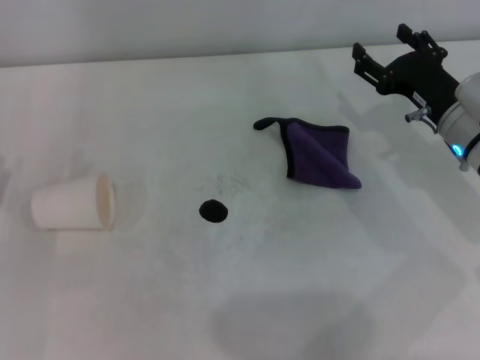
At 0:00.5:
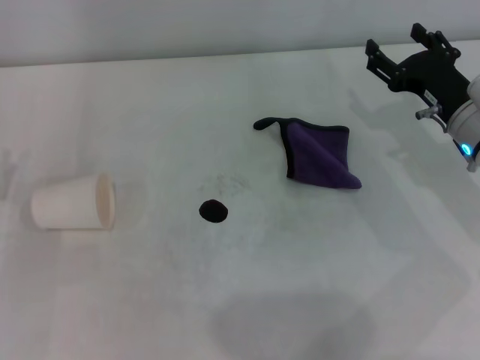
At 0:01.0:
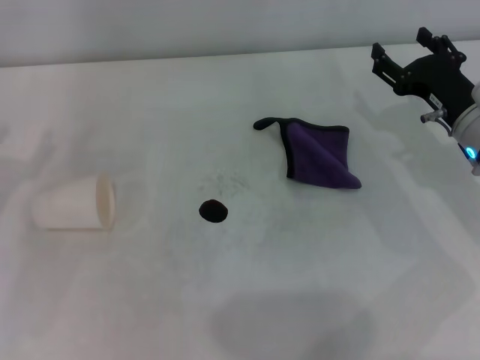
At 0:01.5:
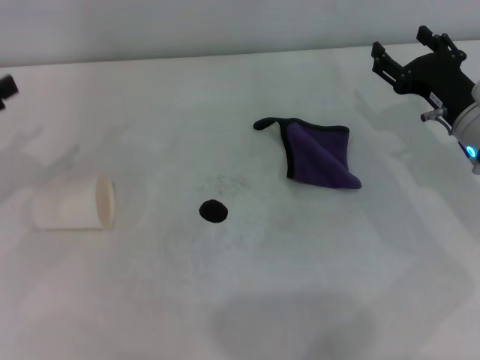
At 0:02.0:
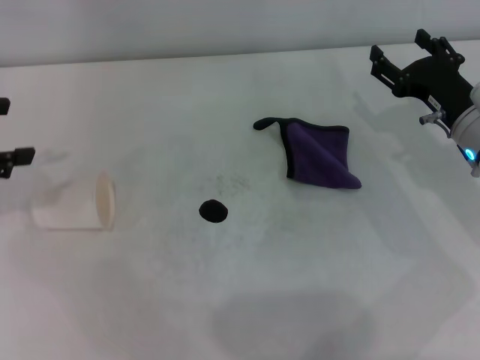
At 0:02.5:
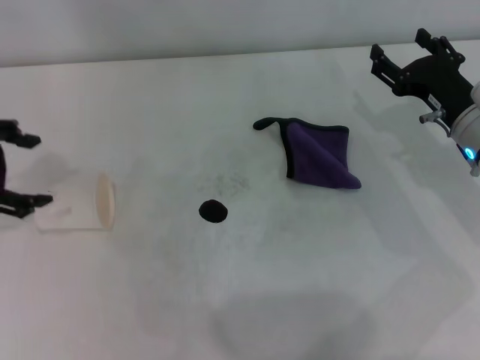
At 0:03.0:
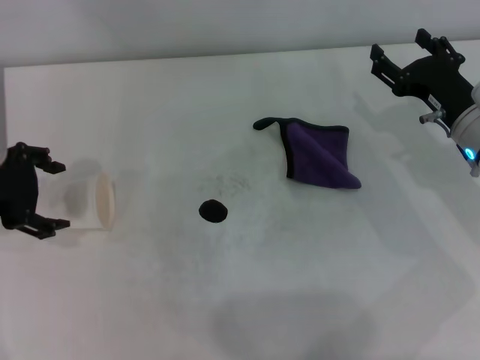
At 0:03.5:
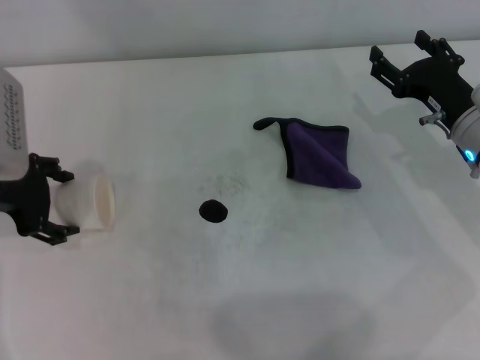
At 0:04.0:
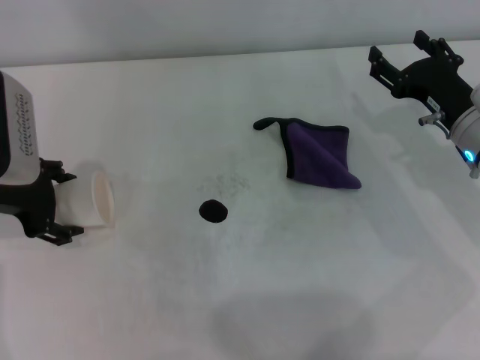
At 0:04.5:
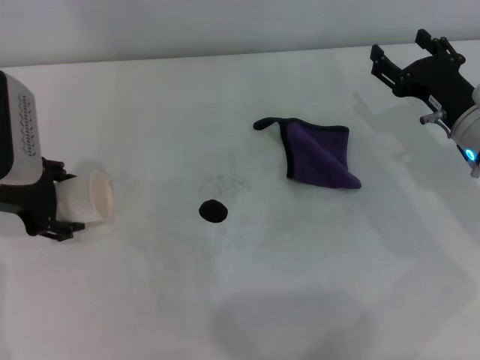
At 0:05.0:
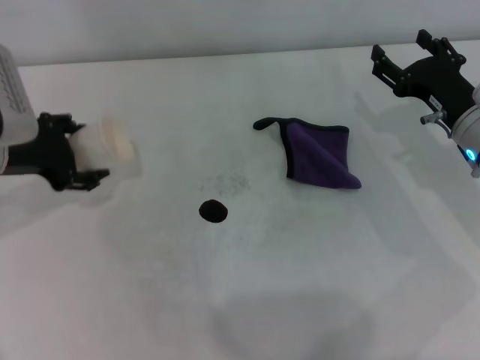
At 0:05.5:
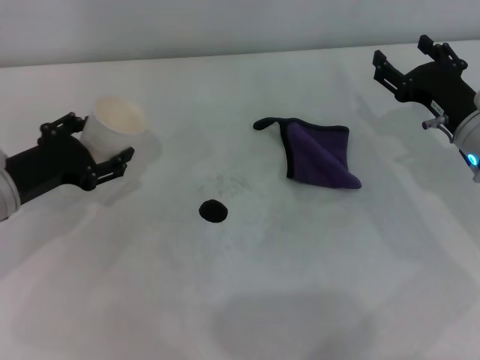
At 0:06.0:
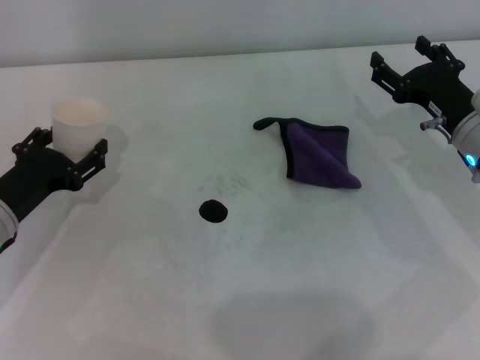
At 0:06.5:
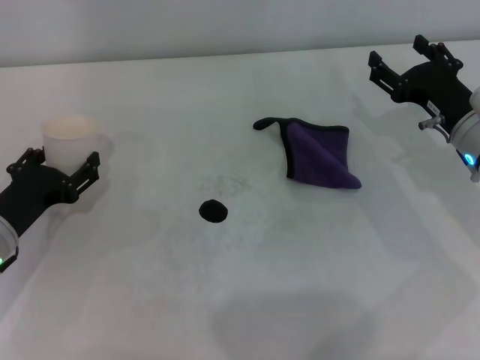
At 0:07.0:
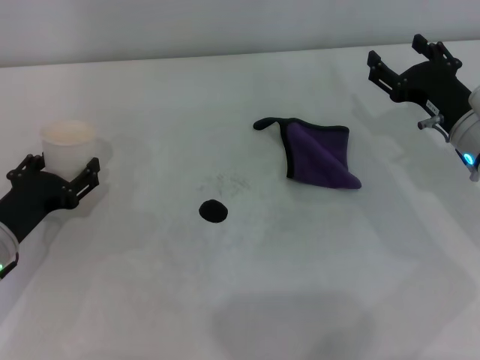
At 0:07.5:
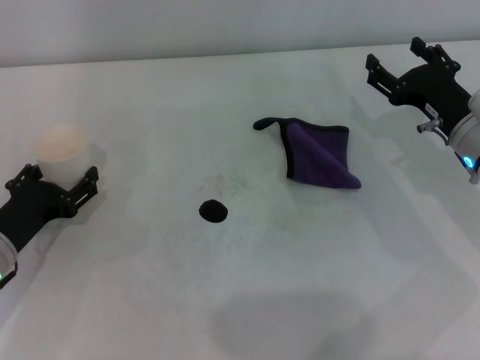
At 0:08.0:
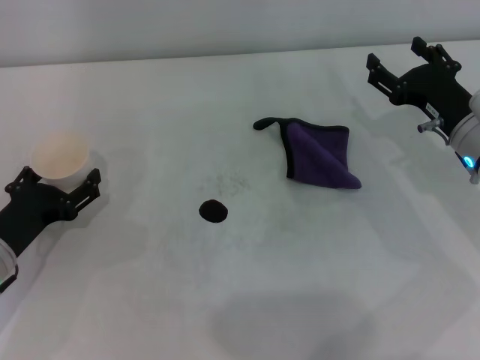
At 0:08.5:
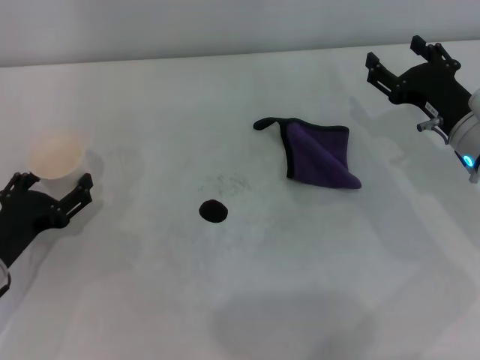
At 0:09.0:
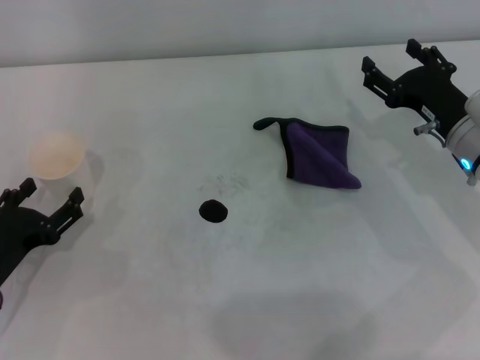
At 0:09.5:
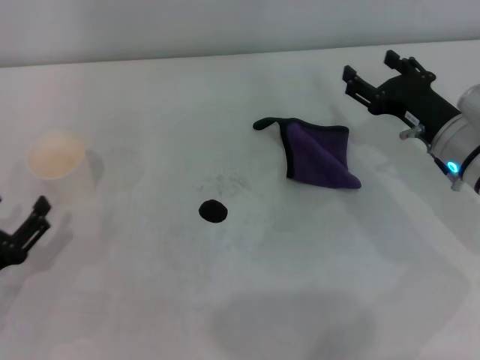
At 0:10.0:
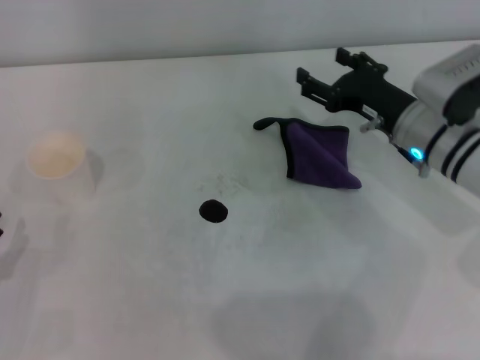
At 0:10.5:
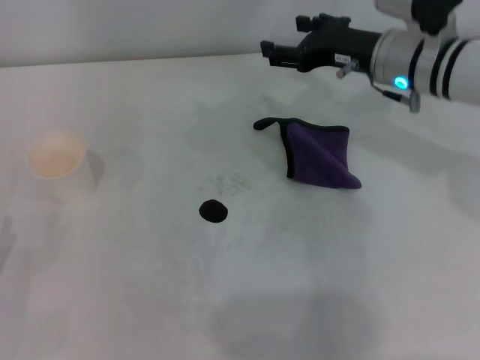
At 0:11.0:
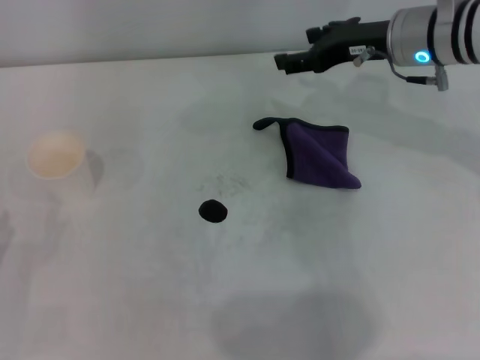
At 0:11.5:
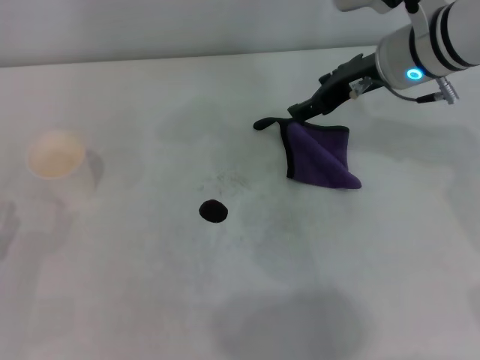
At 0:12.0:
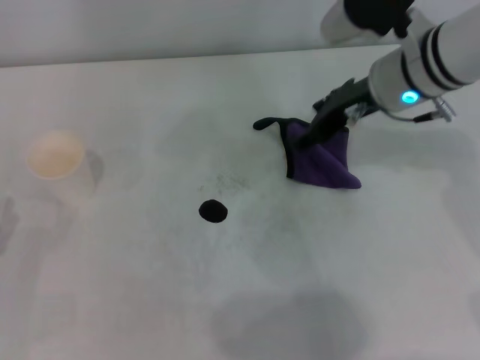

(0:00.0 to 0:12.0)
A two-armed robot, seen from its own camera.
Step, 0:00.0 - 0:04.5: Grasp the paper cup with the left gripper.
Step, 0:05.0 - 0:08.5: Stand the paper cup upright with the left gripper.
0:00.0 - 0:02.0: The left gripper is displaced upward and forward by roughly 20 cm.
0:02.0 - 0:04.0: The left gripper travels to the right and downward by roughly 10 cm.
0:04.0 - 0:06.0: The left gripper moves downward, some 10 cm.
0:06.0 - 0:08.0: The grippers move only a little.
0:08.0 - 0:10.0: The left gripper travels backward and to the left by some 10 cm. Meanwhile the right gripper heads to the left, covering approximately 5 cm.
0:10.0 - 0:12.0: The right gripper goes approximately 10 cm upward.

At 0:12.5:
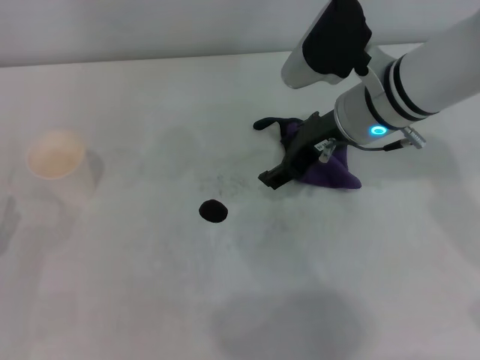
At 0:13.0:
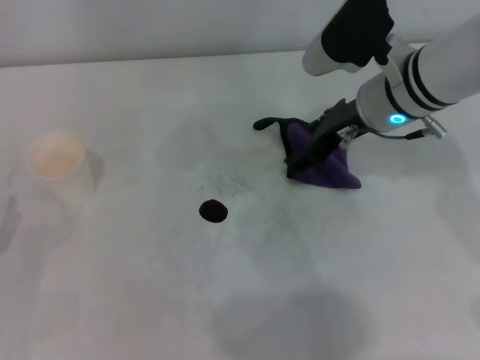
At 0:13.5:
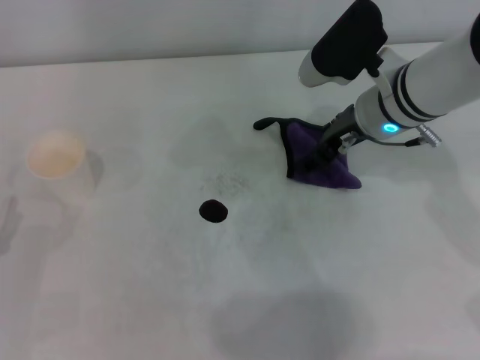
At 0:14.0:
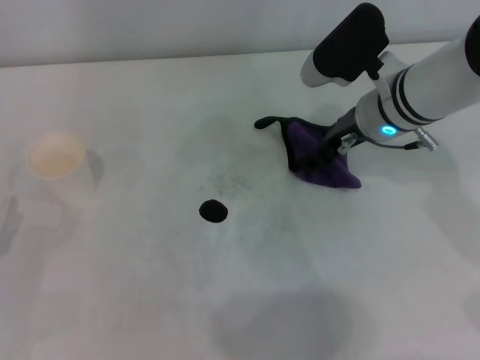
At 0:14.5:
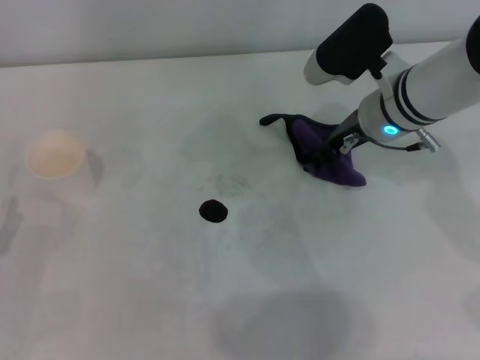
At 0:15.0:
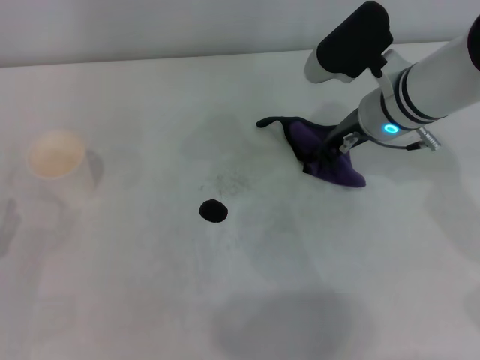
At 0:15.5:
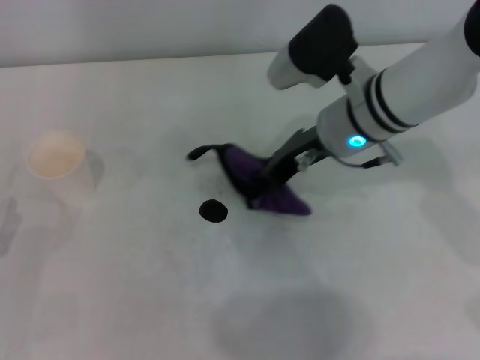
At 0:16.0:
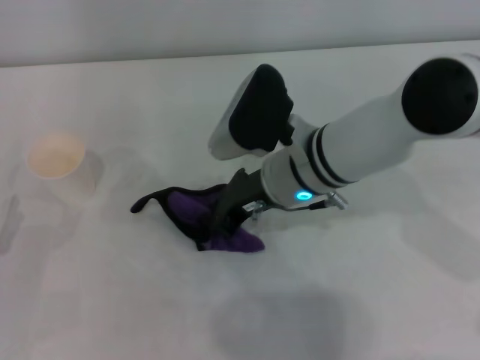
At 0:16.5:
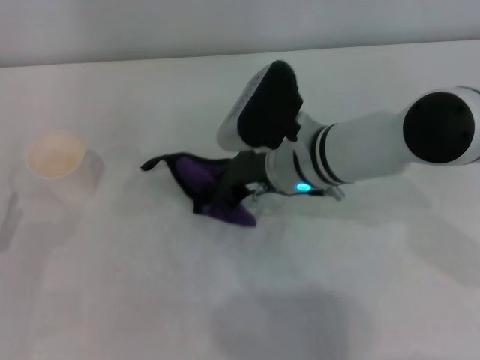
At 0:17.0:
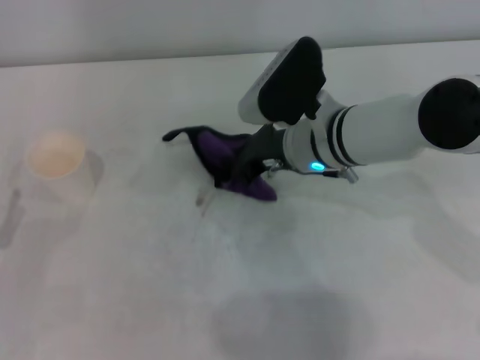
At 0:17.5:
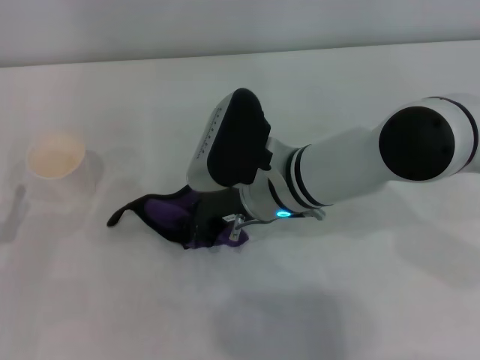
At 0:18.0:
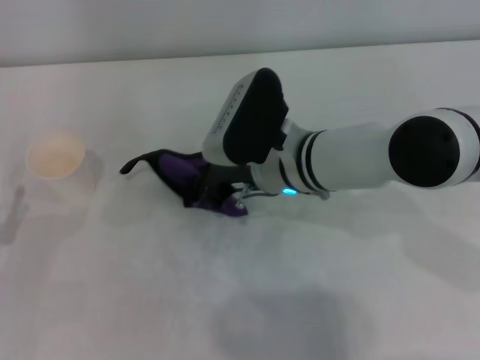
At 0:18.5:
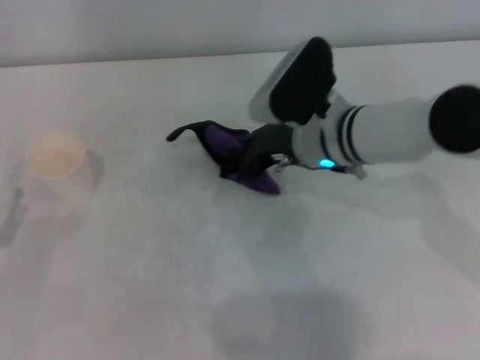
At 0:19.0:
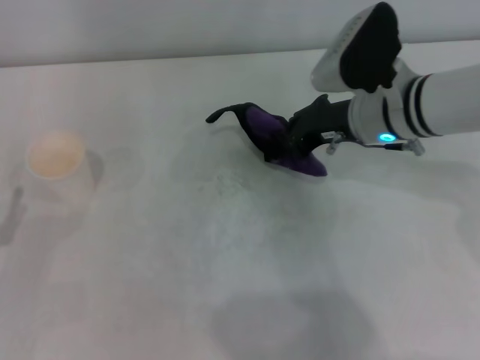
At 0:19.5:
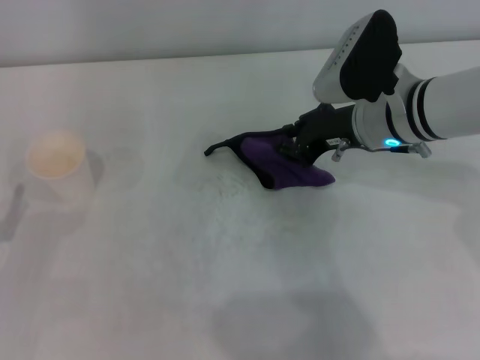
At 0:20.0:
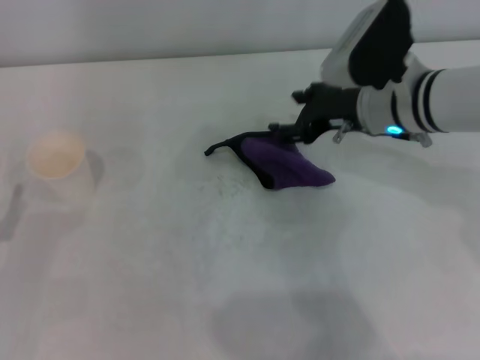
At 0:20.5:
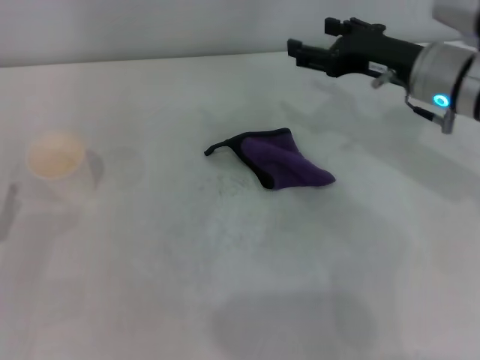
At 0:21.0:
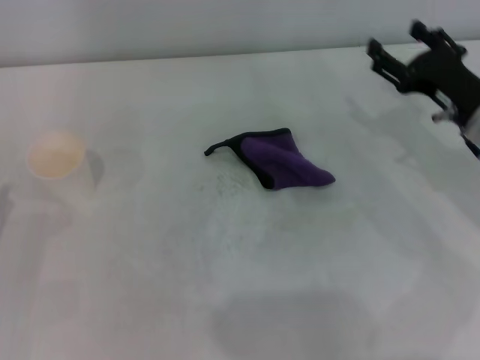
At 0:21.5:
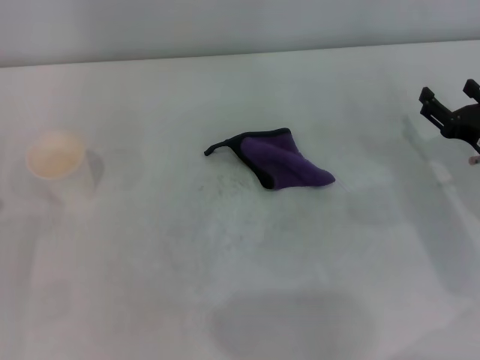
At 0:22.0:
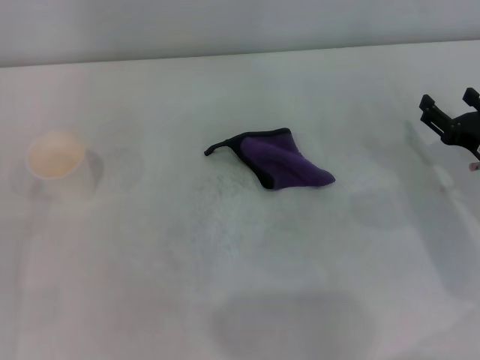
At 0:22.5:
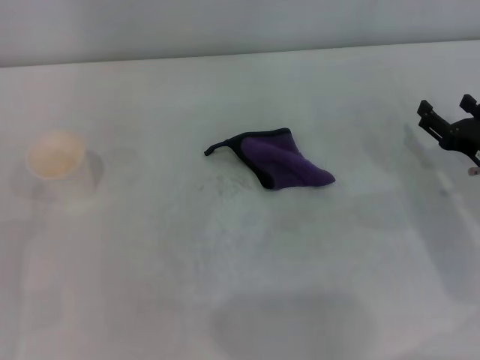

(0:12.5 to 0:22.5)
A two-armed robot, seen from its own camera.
Step, 0:12.5 - 0:14.5: Grasp the rag with the right gripper.
Step, 0:15.0 - 0:18.5: Wipe the stains off the table with the right gripper.
Step, 0:19.0 - 0:19.5: Place the rag on the table with the right gripper.
0:12.5 - 0:14.5: The right gripper closes.
0:14.5 - 0:16.5: The right gripper is displaced to the left by some 10 cm, and closes.
0:16.5 - 0:18.5: The grippers make only small movements.
0:18.5 - 0:20.5: The right gripper shifts roughly 10 cm to the right, and opens up.
0:20.5 - 0:22.5: The right gripper heads downward, to the right and backward, covering approximately 15 cm.

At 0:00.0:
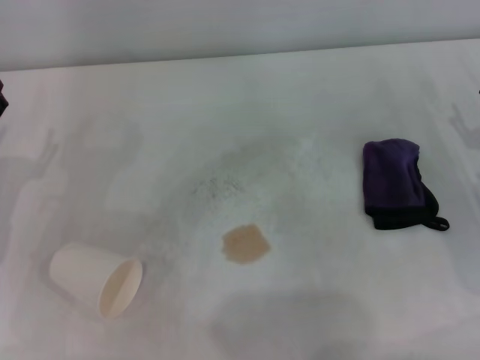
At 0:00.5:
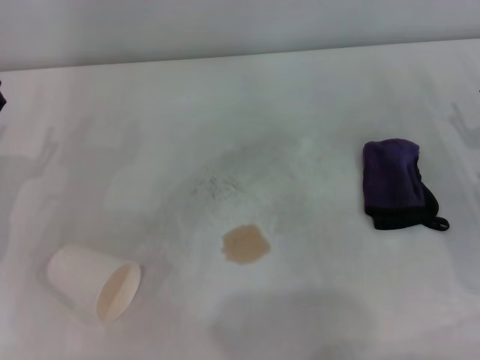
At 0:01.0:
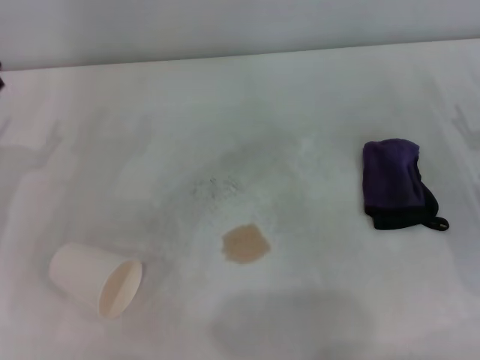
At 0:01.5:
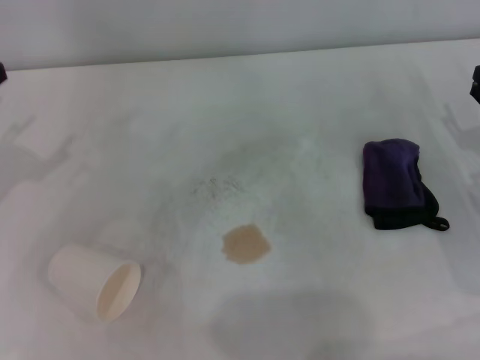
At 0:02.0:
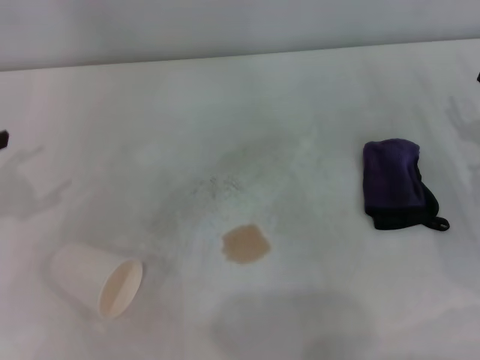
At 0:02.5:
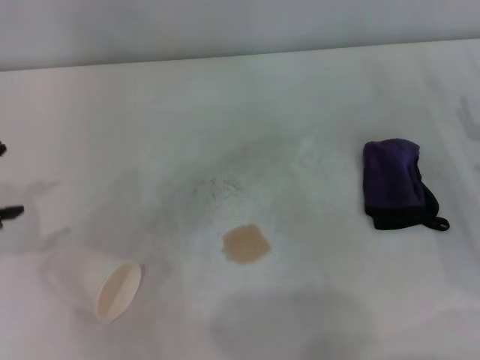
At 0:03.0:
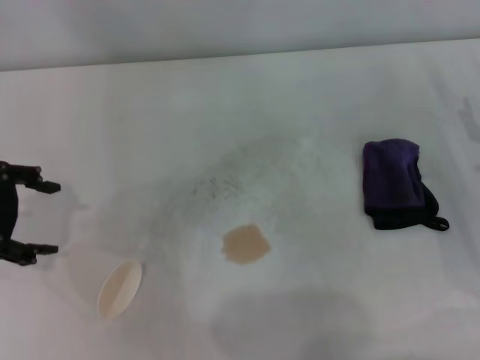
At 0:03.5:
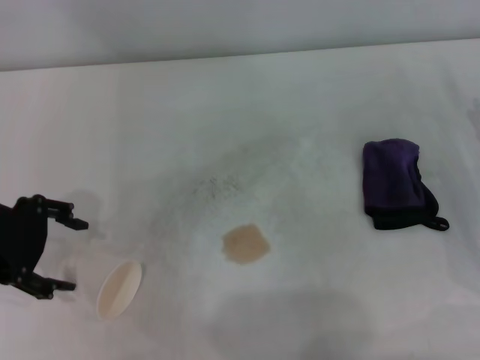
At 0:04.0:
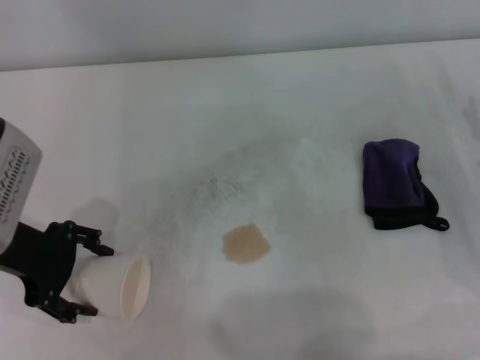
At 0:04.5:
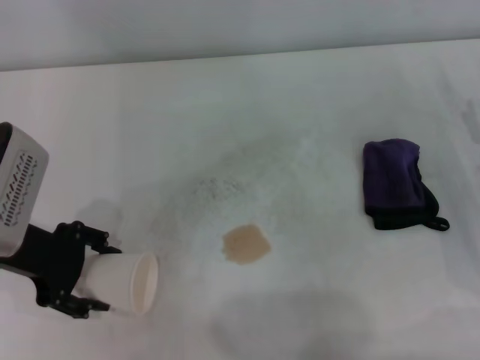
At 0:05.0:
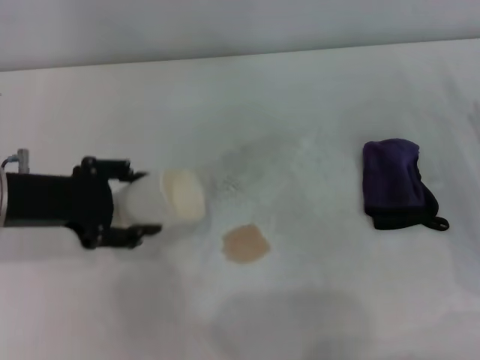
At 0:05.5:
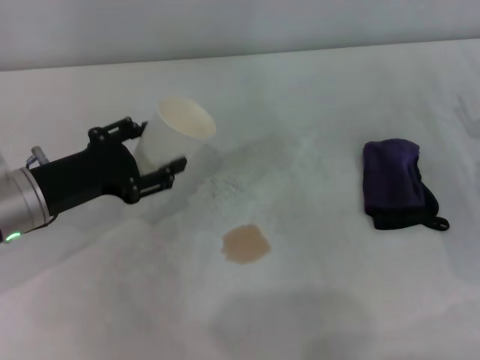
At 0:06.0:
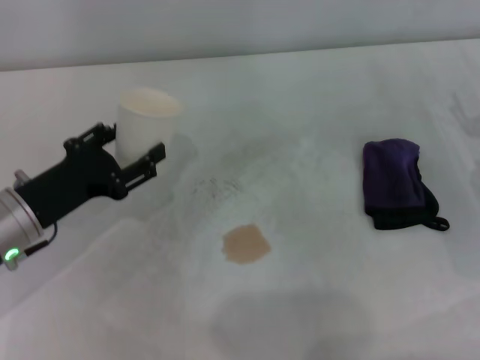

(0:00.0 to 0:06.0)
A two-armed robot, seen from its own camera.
Step, 0:00.0 - 0:04.0: Grasp the paper cup with the left gripper.
0:02.0 - 0:04.0: The left gripper shifts roughly 10 cm to the right.
0:04.0 - 0:06.0: The left gripper is displaced downward by roughly 10 cm, and closes.
